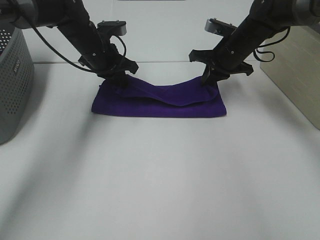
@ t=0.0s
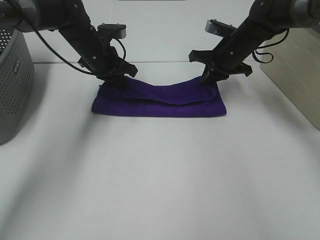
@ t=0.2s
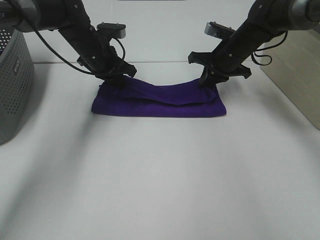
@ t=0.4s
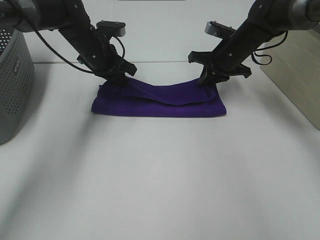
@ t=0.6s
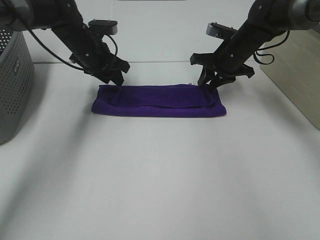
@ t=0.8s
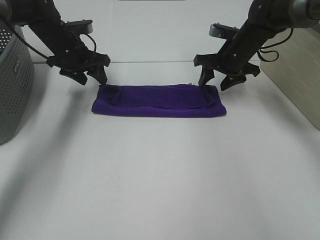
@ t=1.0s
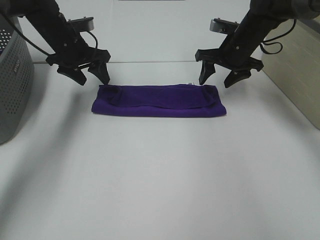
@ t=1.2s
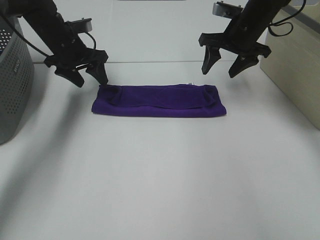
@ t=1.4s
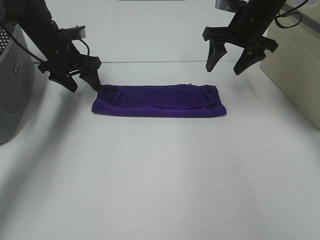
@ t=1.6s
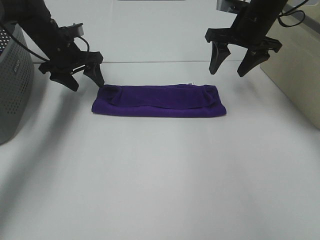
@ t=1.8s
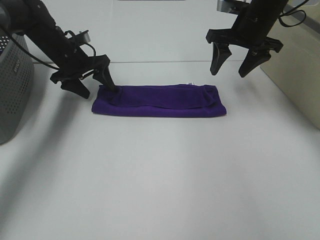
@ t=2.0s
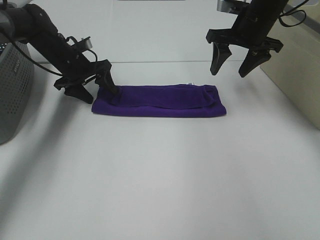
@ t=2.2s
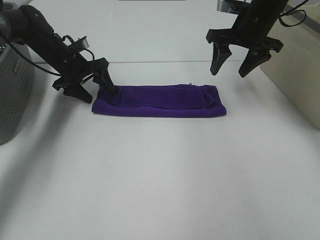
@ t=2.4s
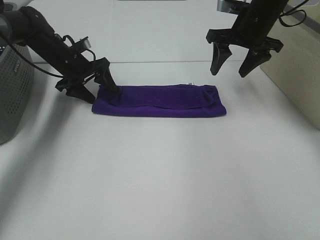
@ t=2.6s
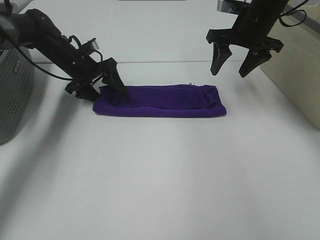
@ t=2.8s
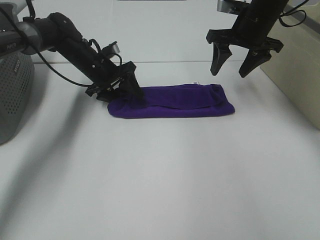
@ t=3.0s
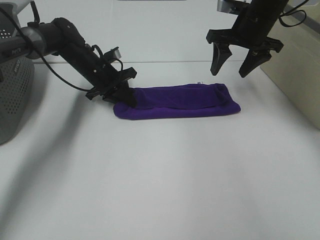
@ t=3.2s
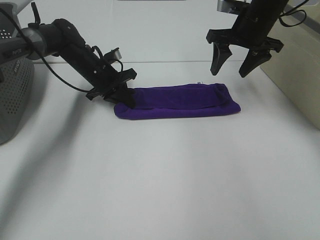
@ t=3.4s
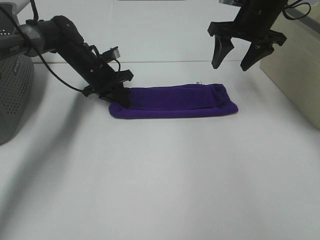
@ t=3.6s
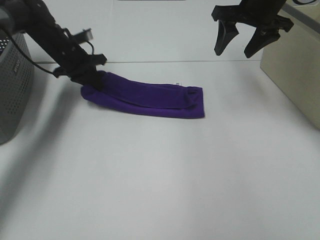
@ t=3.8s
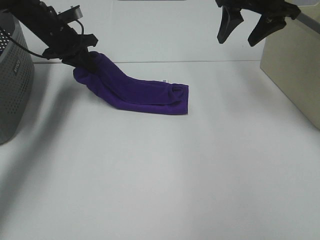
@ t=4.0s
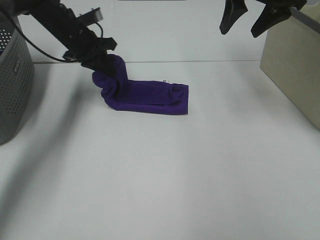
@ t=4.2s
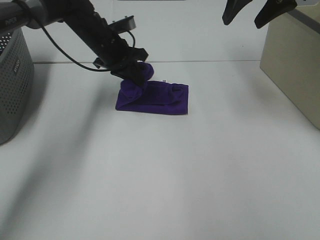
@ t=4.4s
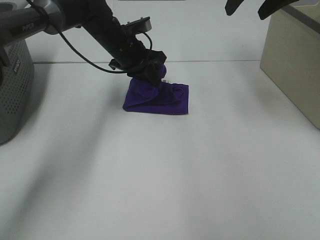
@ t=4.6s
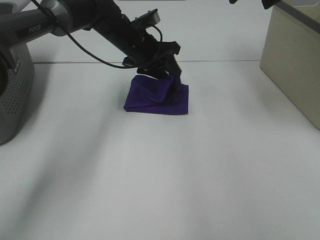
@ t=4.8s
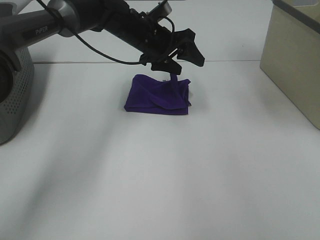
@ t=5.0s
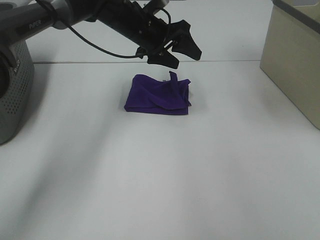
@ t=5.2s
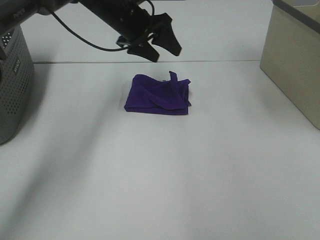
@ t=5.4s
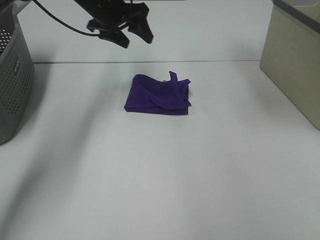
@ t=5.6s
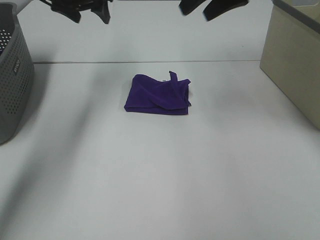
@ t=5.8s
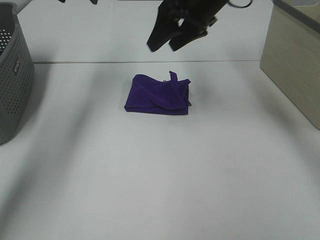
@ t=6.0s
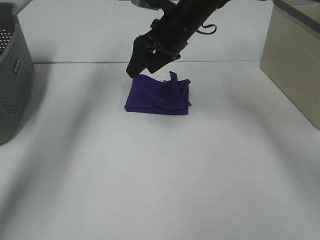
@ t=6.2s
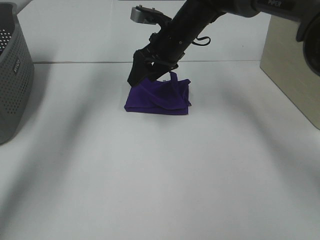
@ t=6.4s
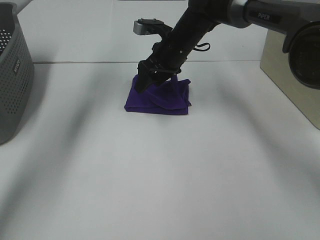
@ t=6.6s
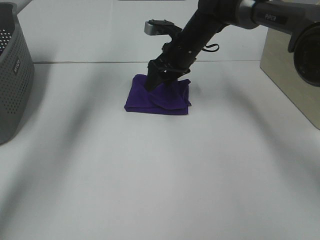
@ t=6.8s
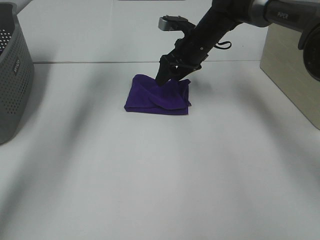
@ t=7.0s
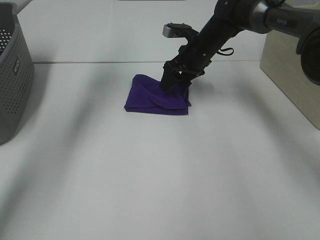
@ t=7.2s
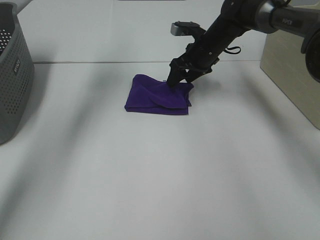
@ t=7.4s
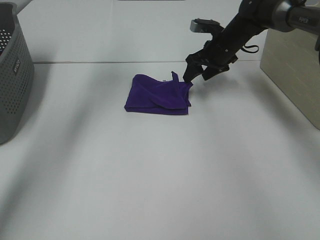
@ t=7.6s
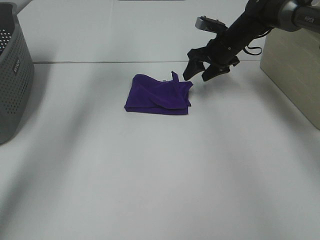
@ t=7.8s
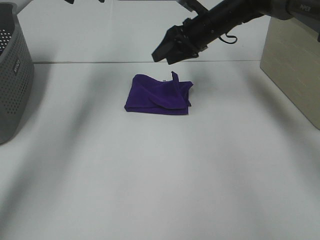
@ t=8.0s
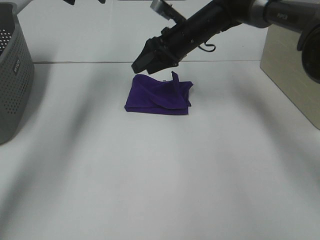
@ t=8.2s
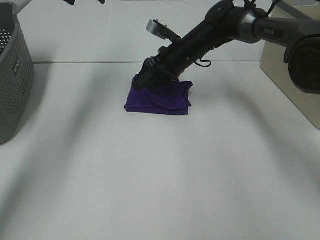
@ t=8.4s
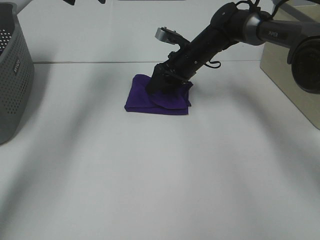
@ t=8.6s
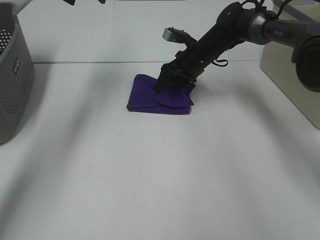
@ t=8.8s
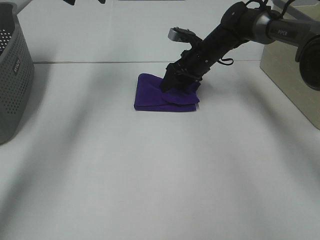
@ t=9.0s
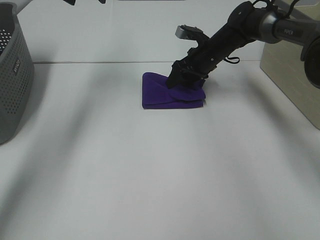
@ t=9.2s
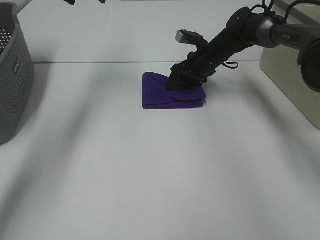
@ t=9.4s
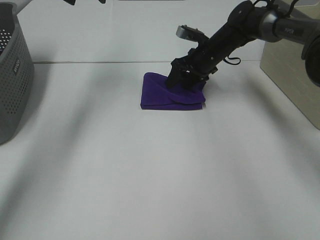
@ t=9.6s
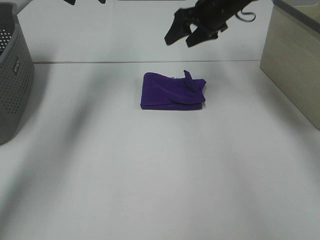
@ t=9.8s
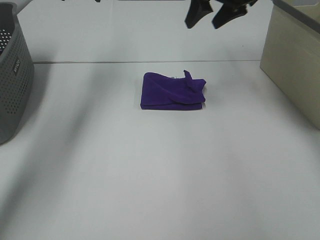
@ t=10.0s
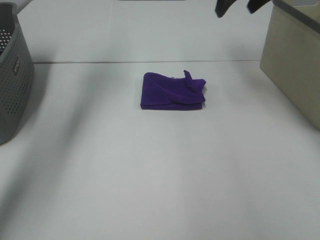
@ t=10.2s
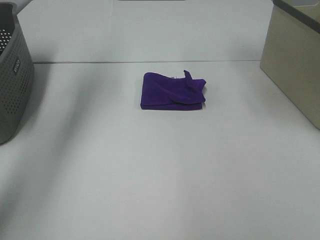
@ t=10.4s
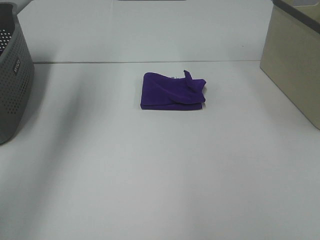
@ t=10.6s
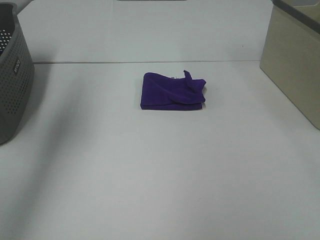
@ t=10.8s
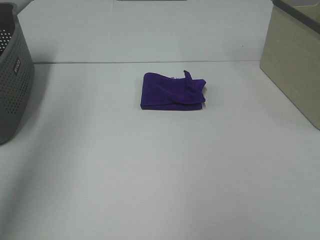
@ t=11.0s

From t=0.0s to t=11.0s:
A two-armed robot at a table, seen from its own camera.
Task of the whole recording: Fold towels.
Step, from t=0.6s to t=4.6s: Left hand: fold the purple towel from left to right.
Step, from t=4.8s to t=9.6s: Right hand: adjust the purple towel.
From t=0.0s to t=1.6s: The right gripper heads upward, covering some 5 cm, and opens. The left gripper heads to the left, covering some 10 cm, and opens its fingers.
From t=1.6s to t=3.2s: The left gripper shifts some 10 cm to the right and downward, and closes up.
From t=3.2s to t=4.8s: The left gripper shifts approximately 15 cm to the right and upward, and opens, while the right gripper shifts approximately 15 cm upward.
From t=4.8s to t=6.2s: The right gripper is displaced downward and to the left by roughly 20 cm. The left gripper moves upward and to the left, about 20 cm.
From t=6.2s to t=7.8s: The right gripper heads to the right, forward and downward, covering roughly 15 cm.
From t=9.4s to t=11.0s: The right gripper goes some 60 cm backward and upward, while the left gripper goes approximately 30 cm backward.

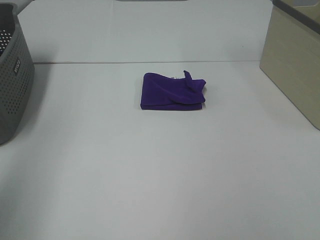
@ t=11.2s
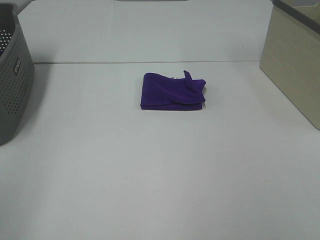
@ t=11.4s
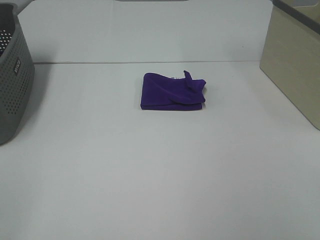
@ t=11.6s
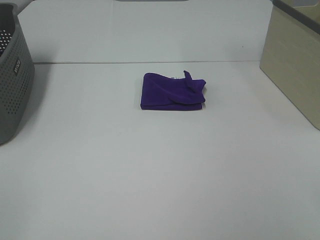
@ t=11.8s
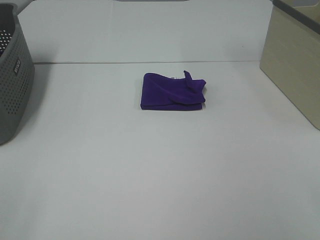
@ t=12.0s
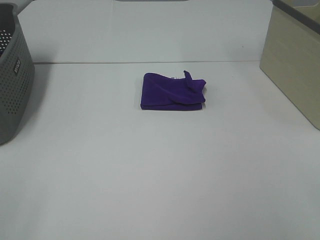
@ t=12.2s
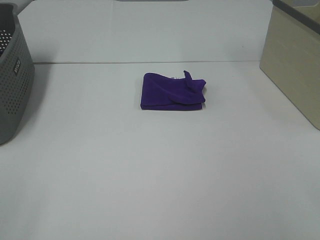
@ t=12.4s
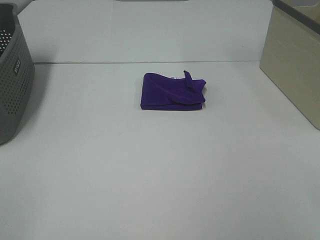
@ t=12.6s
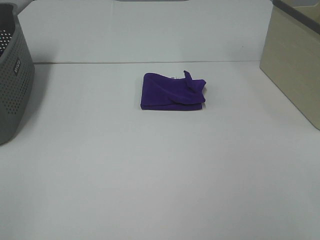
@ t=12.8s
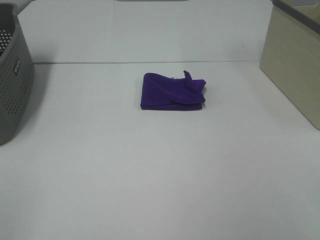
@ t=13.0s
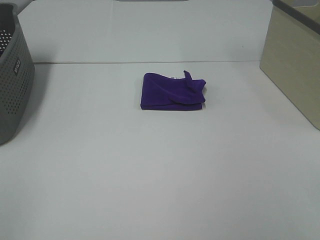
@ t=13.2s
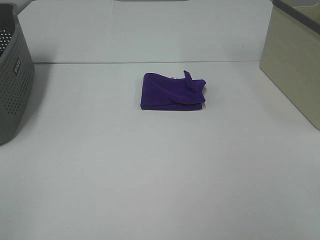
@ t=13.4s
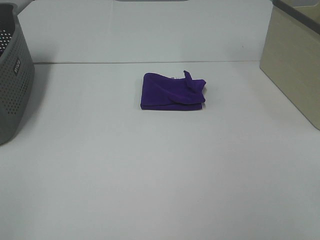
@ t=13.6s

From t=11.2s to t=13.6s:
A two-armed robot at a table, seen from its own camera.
Task of the whole recording: Fold towels.
From t=11.2s to t=12.4s: The left gripper travels backward and downward by roughly 15 cm.
